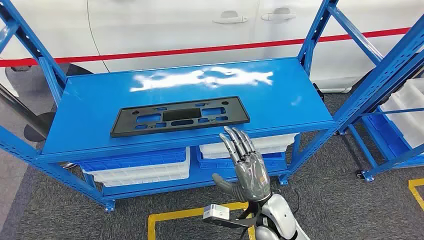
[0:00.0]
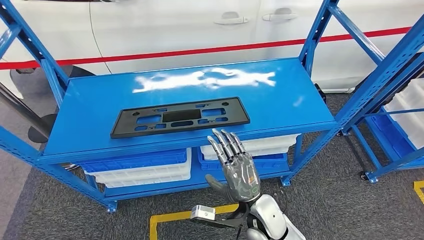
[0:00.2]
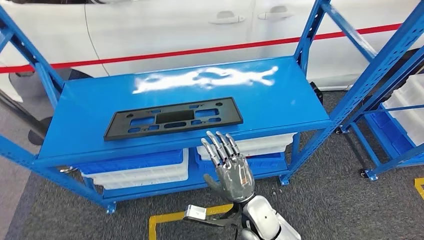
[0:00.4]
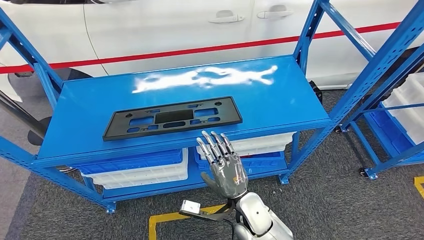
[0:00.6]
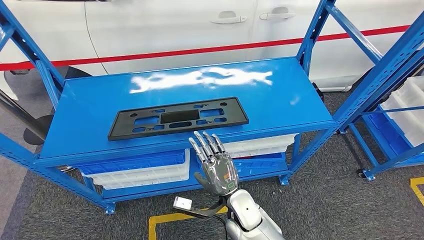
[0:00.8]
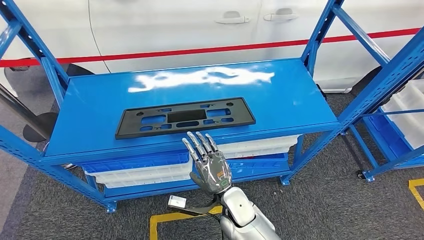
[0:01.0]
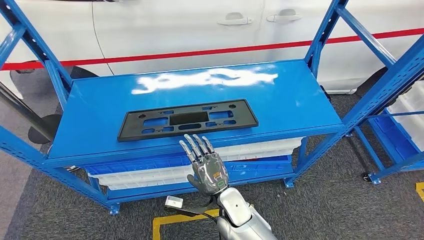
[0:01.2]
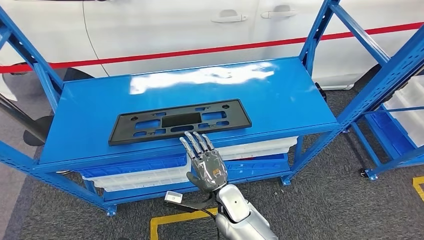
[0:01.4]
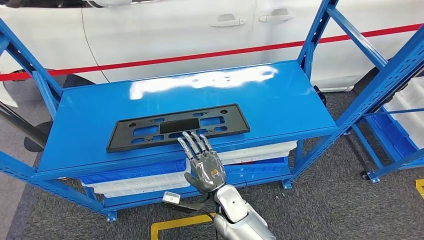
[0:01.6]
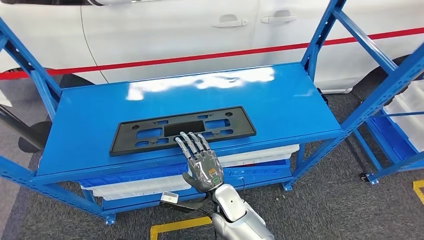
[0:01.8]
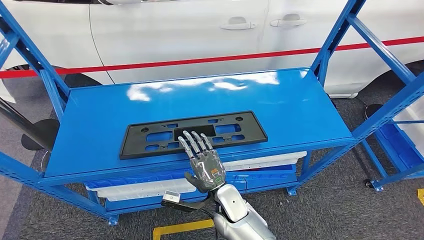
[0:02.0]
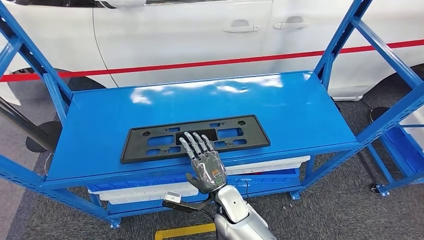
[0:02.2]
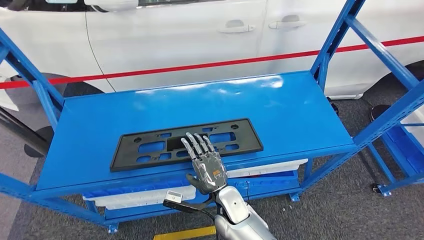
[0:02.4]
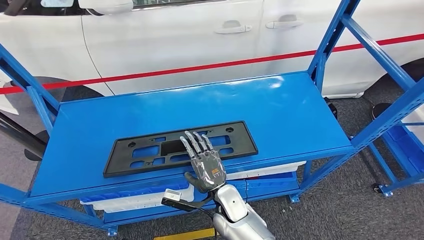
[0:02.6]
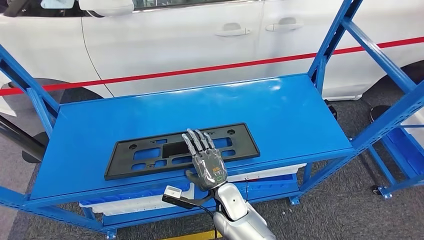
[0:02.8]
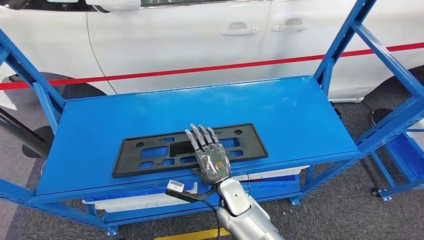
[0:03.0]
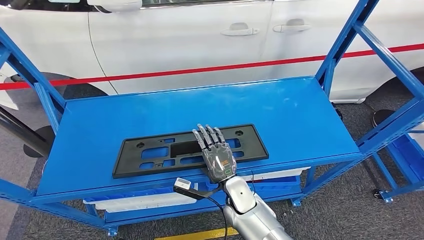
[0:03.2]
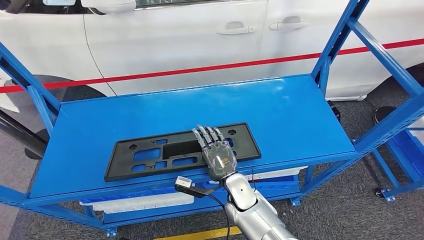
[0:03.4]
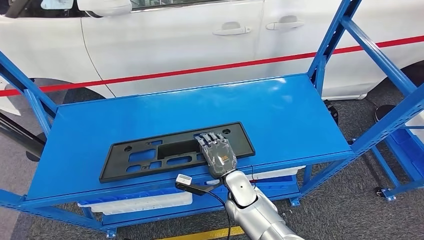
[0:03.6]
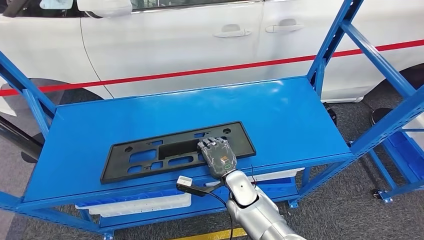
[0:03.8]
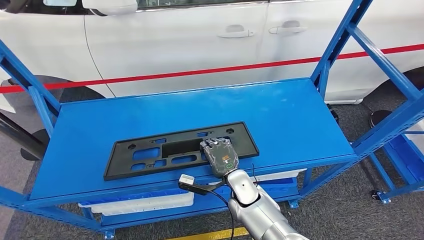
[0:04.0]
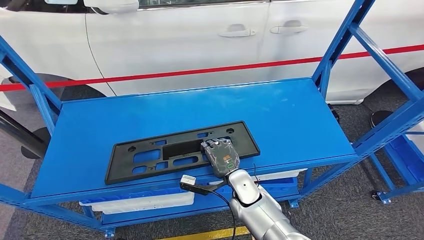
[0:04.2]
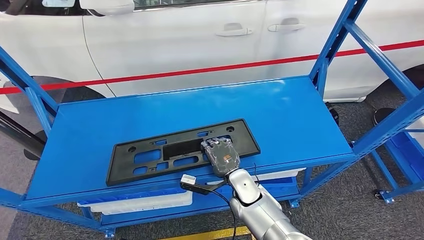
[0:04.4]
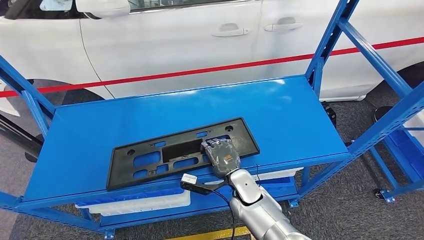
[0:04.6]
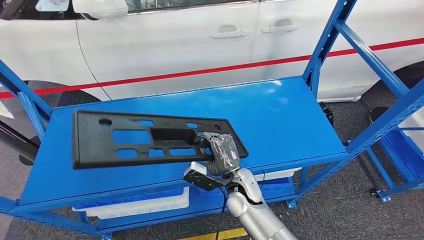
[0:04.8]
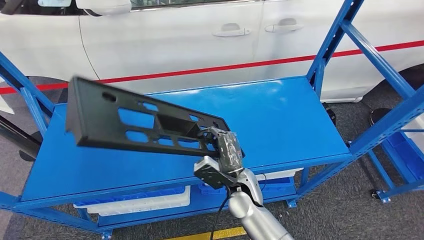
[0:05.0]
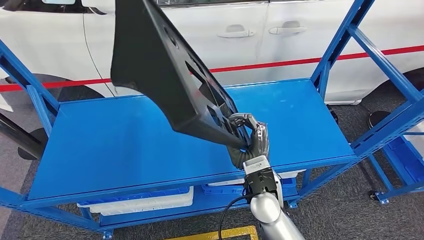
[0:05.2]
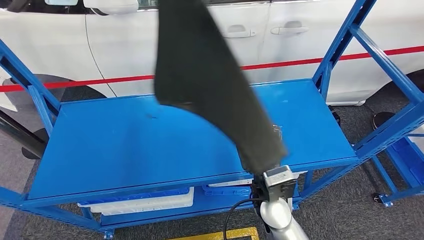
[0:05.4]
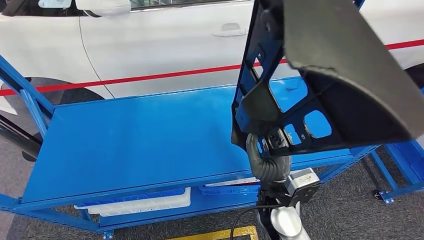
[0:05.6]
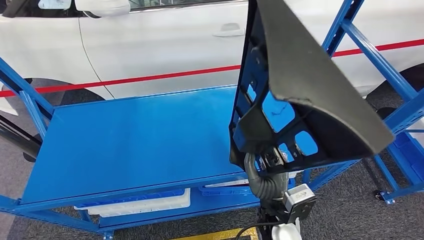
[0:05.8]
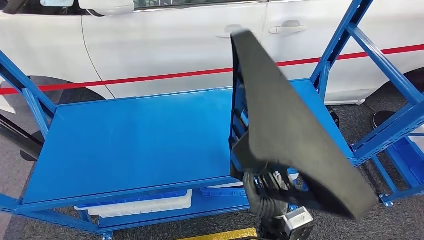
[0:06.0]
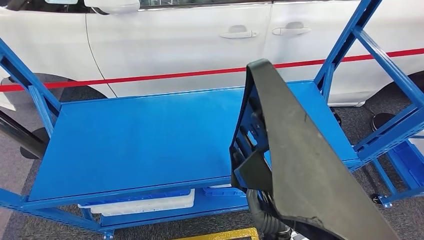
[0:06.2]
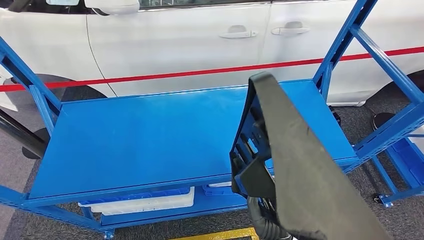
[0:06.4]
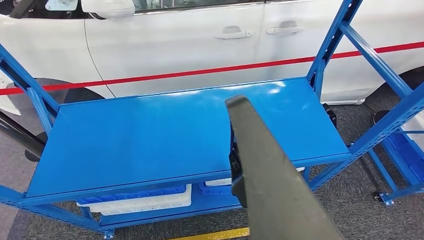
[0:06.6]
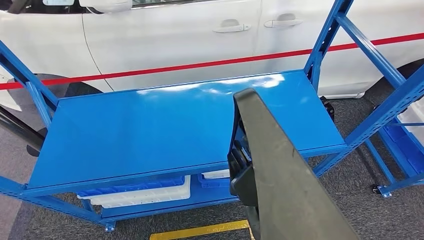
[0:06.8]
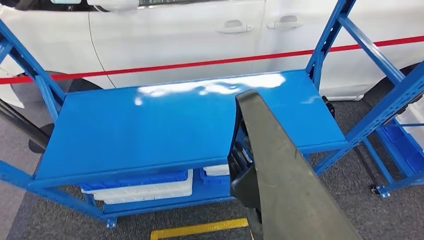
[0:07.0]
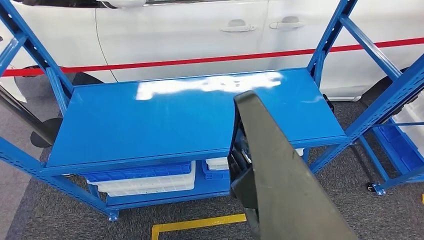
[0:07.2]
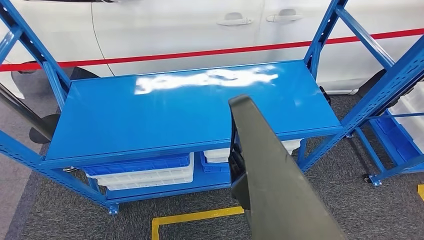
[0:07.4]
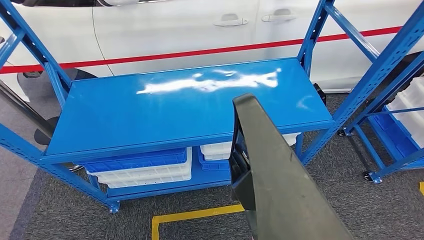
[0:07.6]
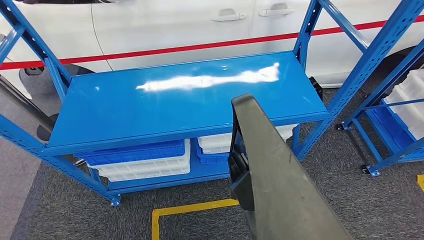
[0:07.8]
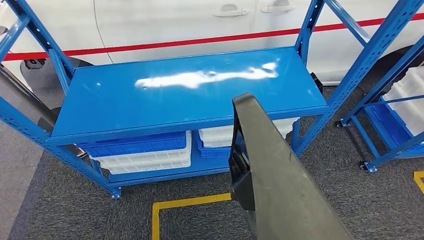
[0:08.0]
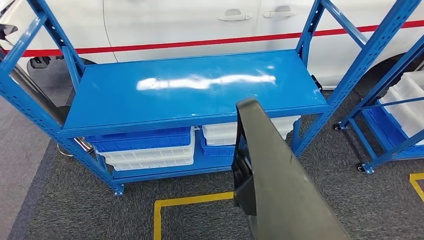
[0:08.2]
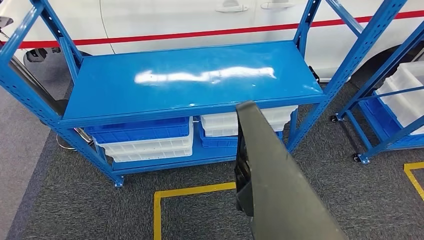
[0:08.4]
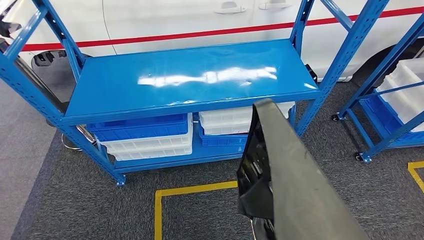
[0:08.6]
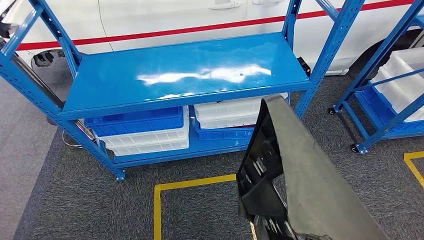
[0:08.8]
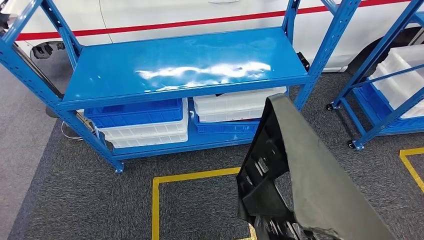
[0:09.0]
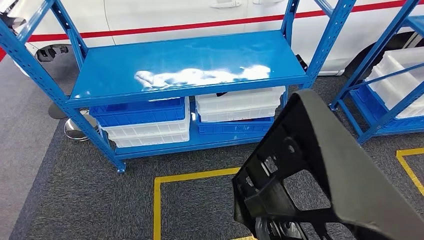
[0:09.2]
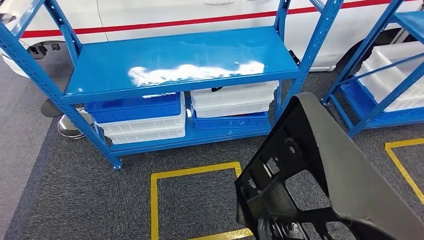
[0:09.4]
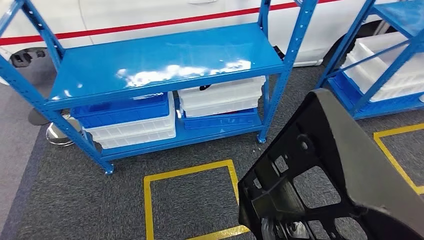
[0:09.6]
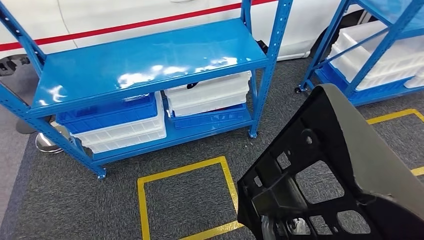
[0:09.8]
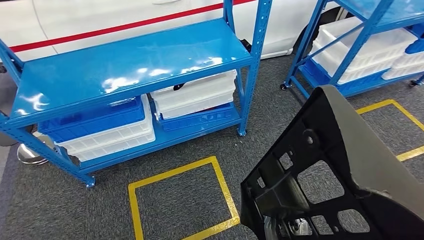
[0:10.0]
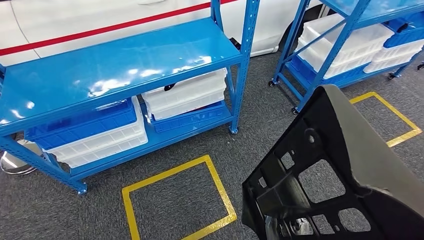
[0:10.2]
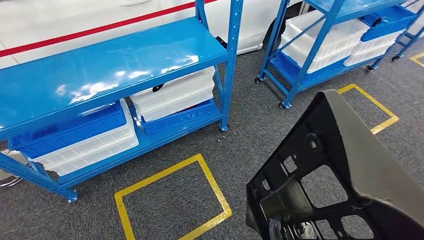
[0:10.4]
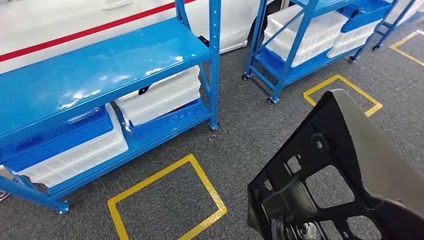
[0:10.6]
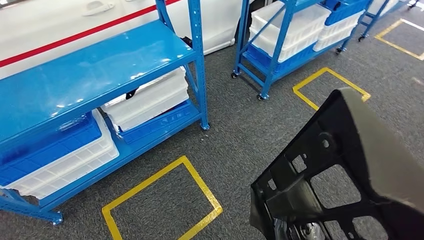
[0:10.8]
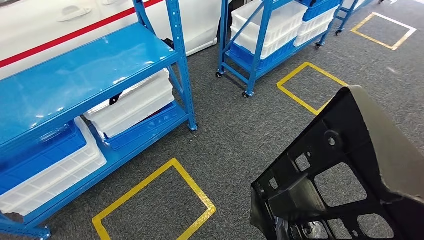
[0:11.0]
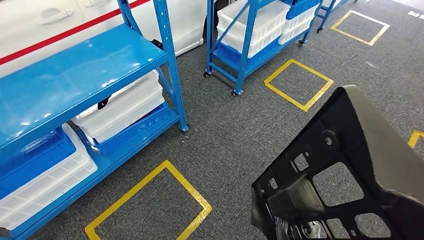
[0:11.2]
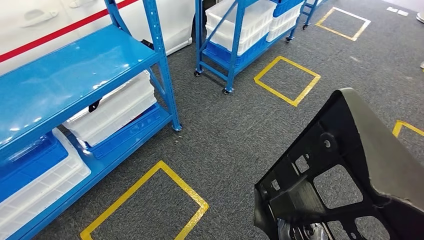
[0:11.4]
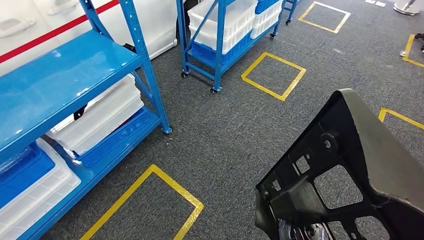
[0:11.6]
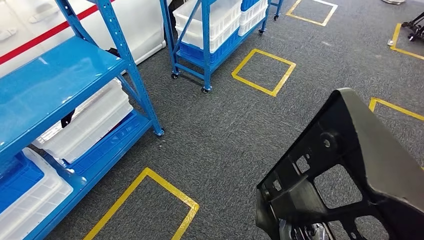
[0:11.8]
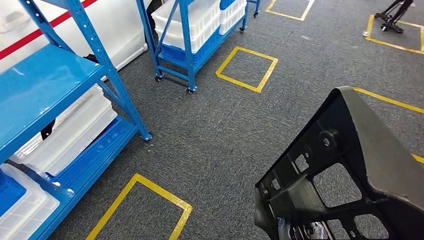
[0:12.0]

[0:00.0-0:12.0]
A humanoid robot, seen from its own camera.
Step, 0:00.0 to 0:10.6: Pick up the large material from the shelf.

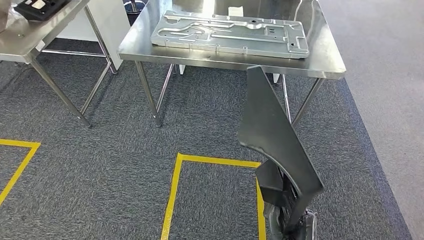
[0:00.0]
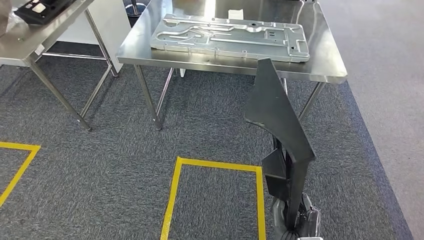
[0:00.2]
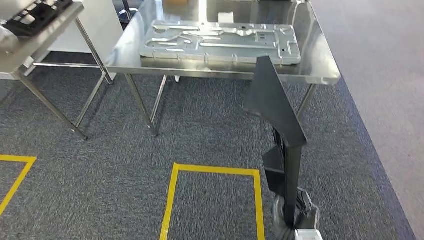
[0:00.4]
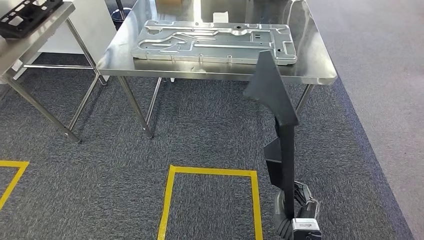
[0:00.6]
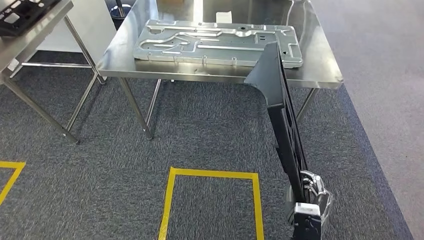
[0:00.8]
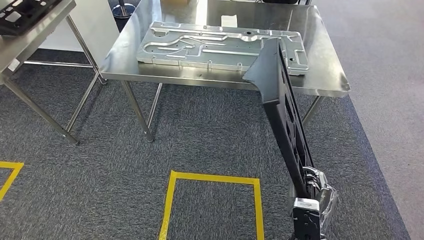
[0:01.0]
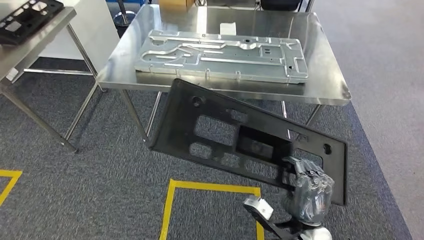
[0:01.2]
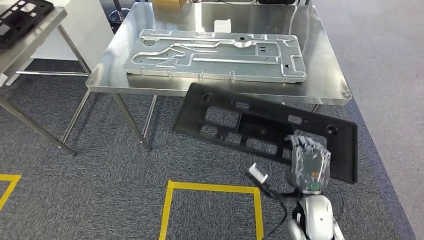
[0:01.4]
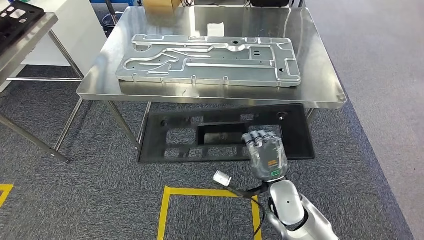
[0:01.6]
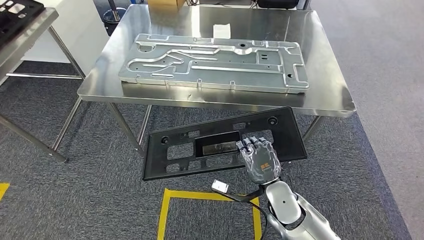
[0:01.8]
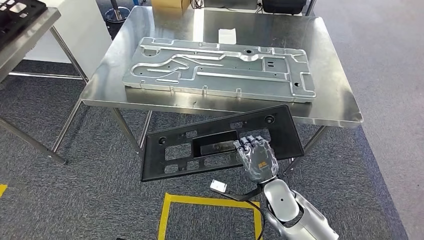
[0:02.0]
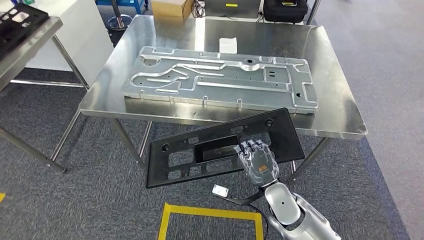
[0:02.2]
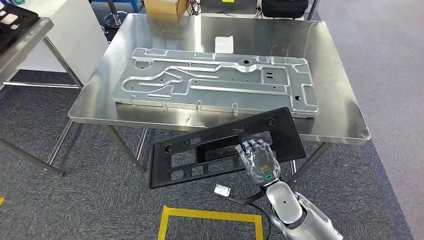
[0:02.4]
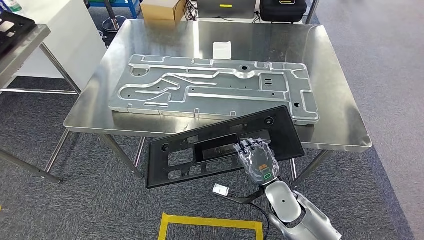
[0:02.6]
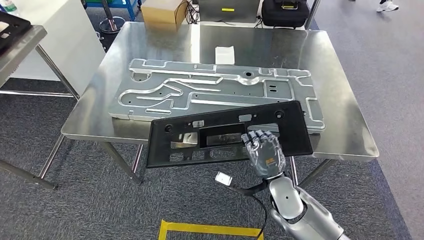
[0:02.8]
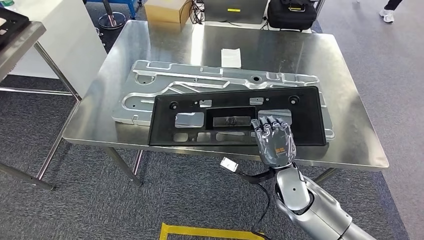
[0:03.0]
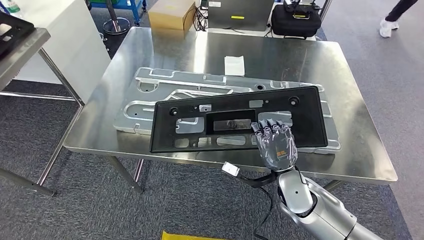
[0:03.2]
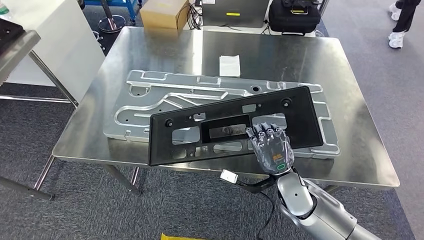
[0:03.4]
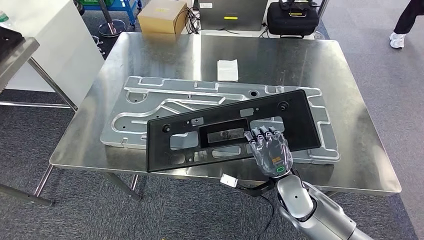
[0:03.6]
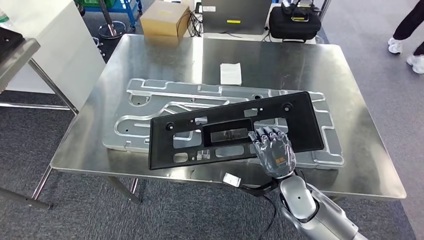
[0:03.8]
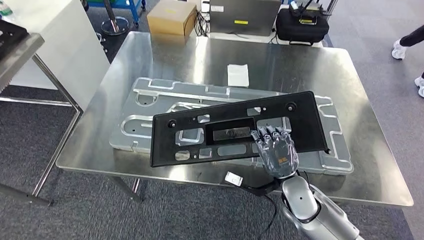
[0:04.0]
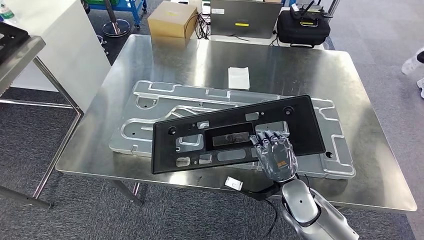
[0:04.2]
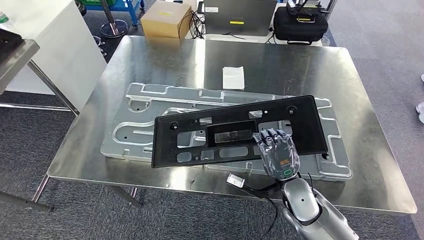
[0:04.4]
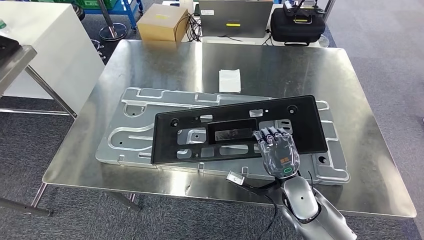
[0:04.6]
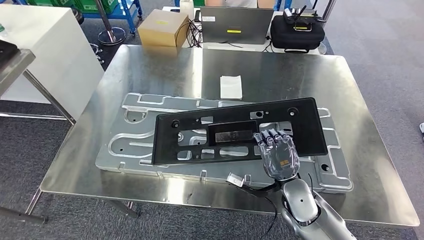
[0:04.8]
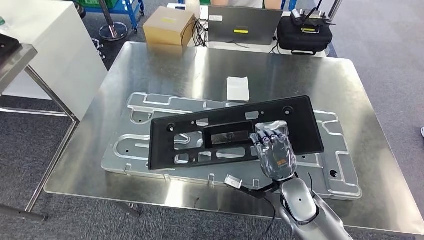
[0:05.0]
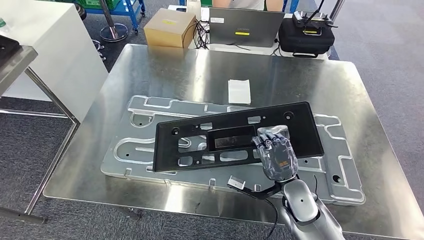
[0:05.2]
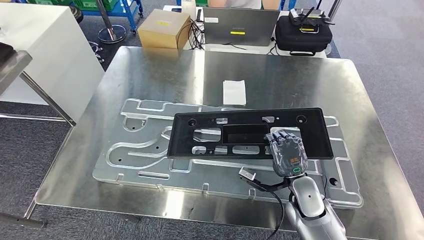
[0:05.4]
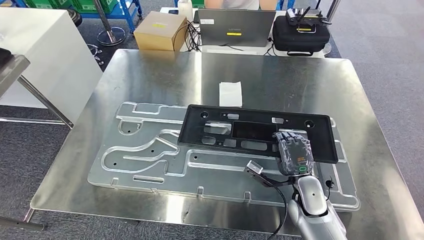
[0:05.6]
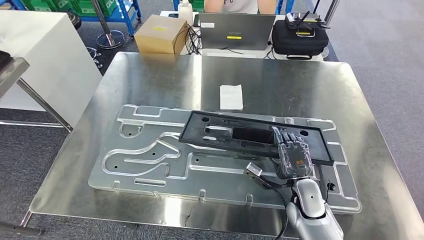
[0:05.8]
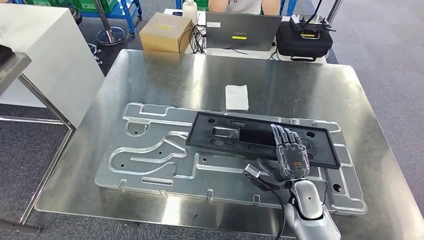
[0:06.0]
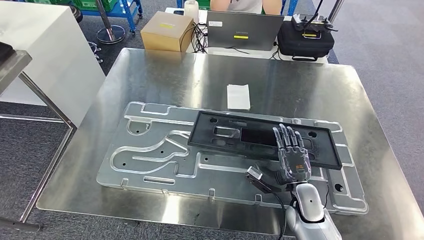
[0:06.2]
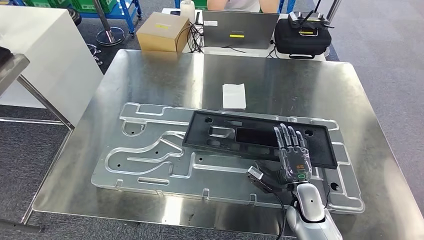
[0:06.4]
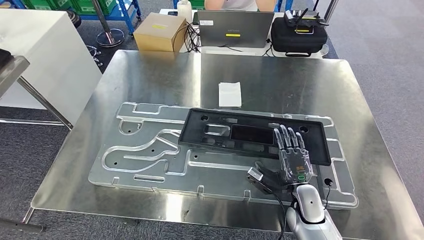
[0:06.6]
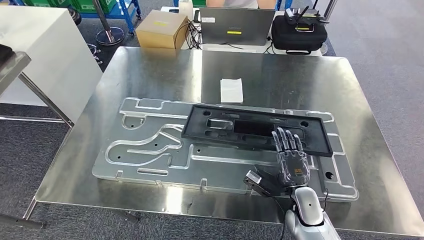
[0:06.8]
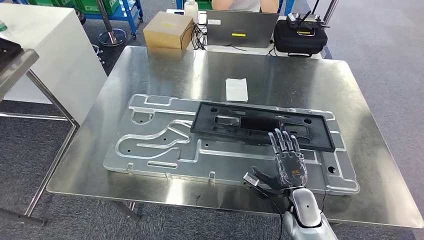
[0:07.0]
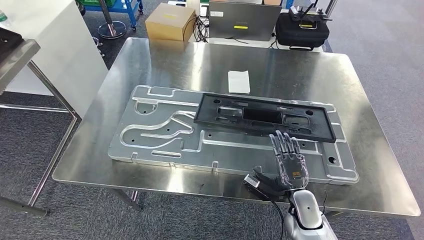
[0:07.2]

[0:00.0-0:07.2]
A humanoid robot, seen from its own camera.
Step, 0:00.0 to 0:02.4: Move the large material to the workbench.
